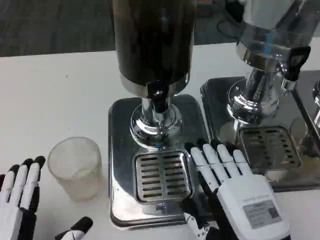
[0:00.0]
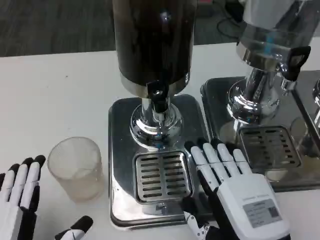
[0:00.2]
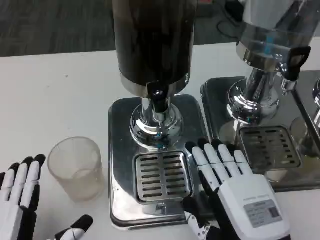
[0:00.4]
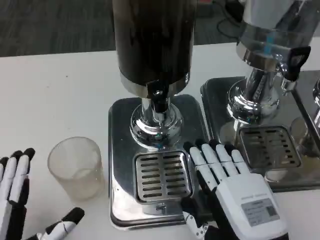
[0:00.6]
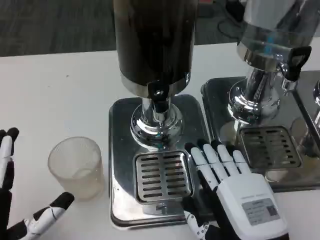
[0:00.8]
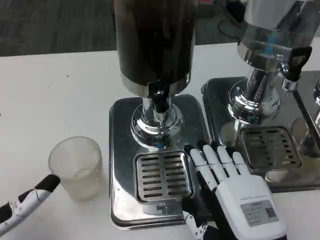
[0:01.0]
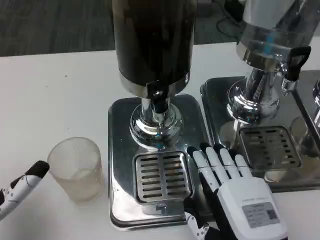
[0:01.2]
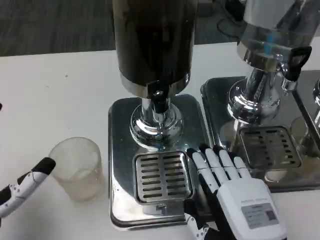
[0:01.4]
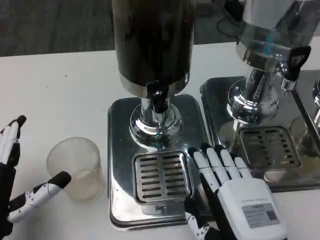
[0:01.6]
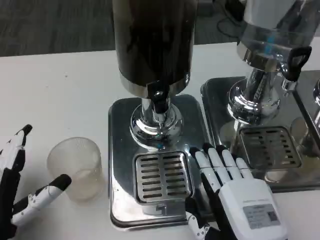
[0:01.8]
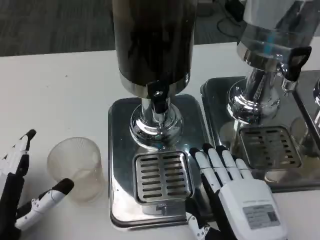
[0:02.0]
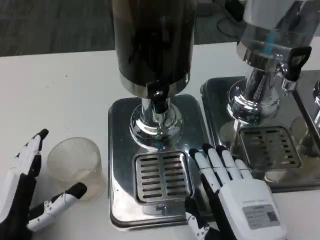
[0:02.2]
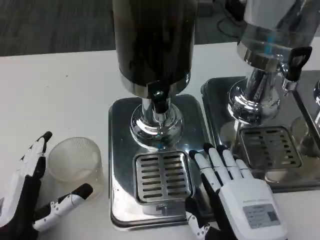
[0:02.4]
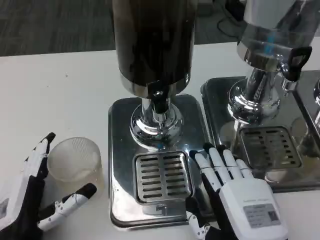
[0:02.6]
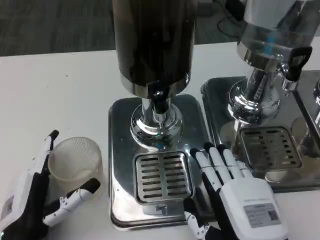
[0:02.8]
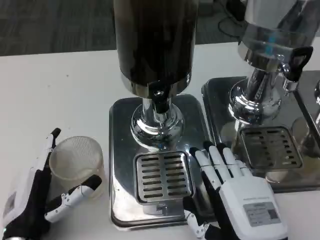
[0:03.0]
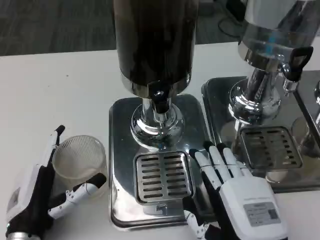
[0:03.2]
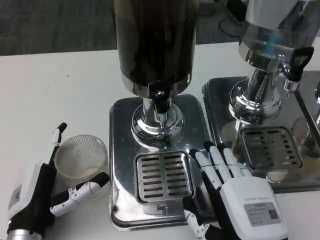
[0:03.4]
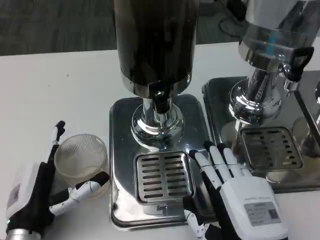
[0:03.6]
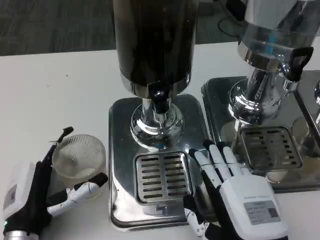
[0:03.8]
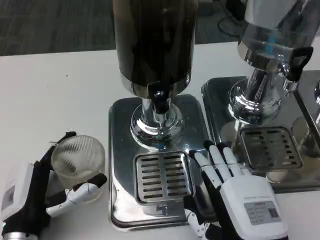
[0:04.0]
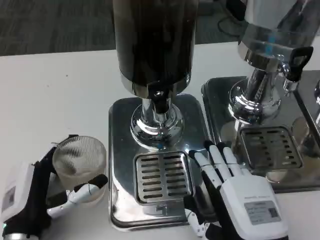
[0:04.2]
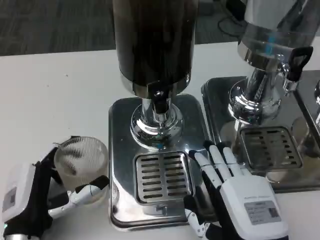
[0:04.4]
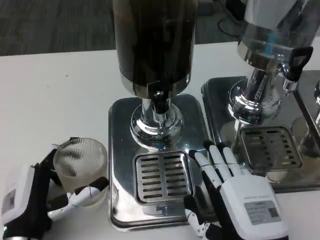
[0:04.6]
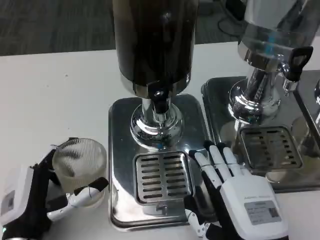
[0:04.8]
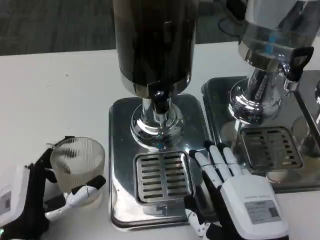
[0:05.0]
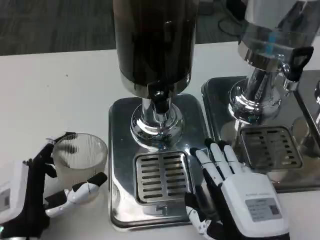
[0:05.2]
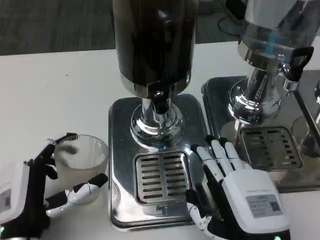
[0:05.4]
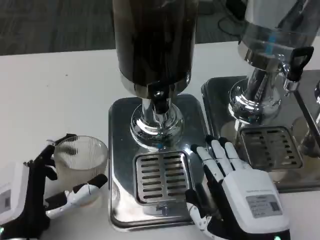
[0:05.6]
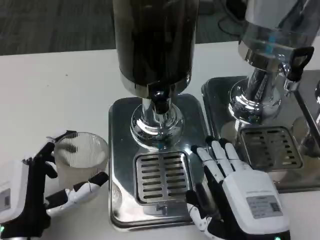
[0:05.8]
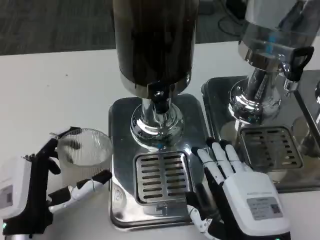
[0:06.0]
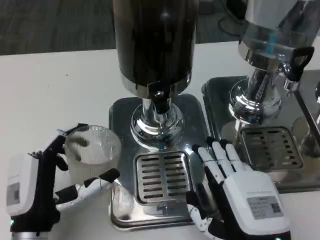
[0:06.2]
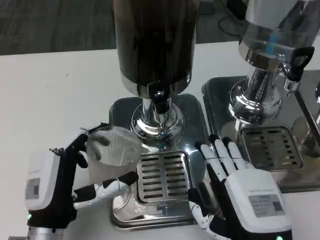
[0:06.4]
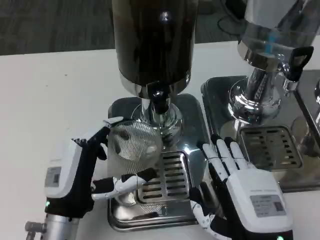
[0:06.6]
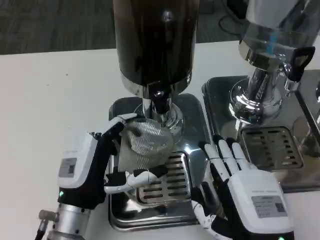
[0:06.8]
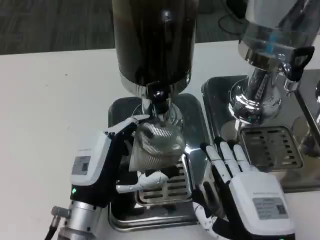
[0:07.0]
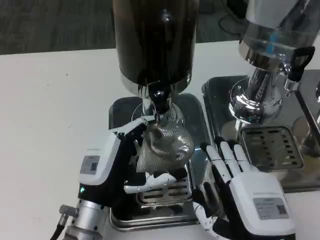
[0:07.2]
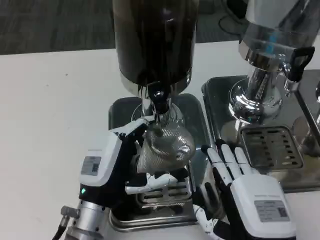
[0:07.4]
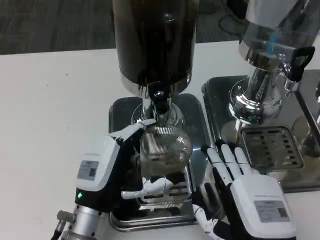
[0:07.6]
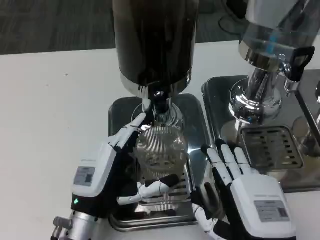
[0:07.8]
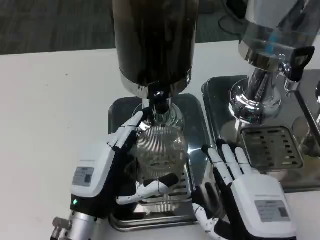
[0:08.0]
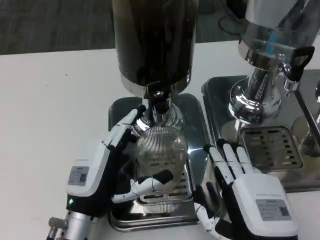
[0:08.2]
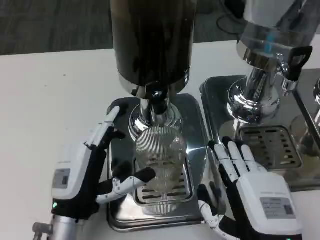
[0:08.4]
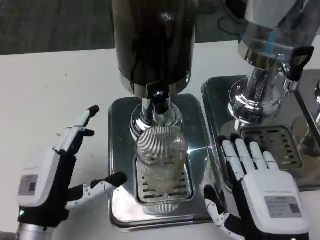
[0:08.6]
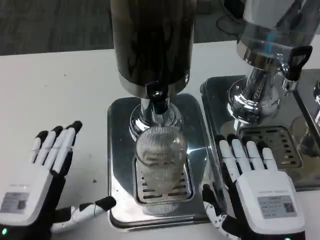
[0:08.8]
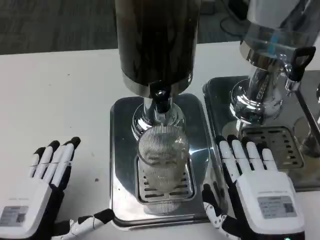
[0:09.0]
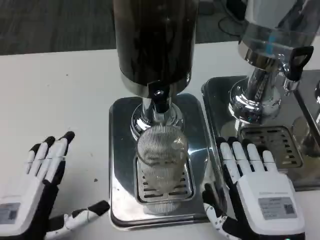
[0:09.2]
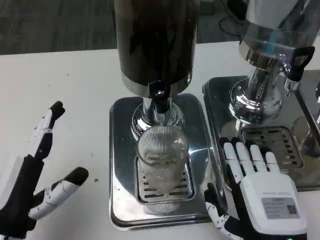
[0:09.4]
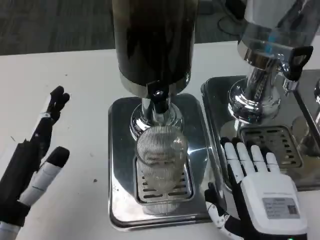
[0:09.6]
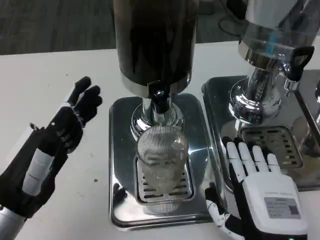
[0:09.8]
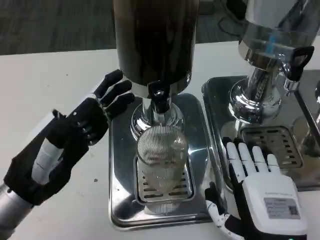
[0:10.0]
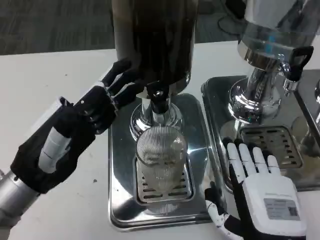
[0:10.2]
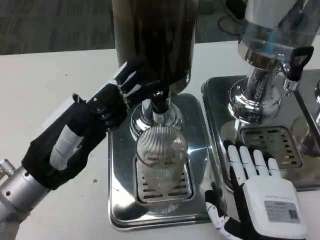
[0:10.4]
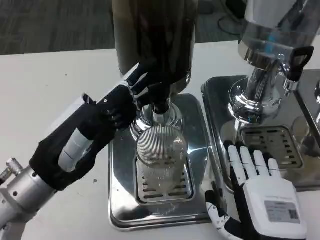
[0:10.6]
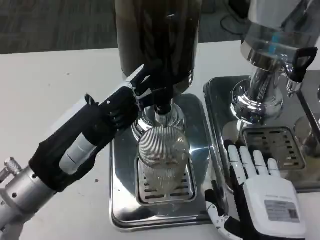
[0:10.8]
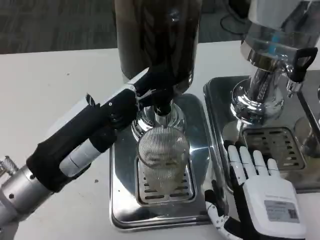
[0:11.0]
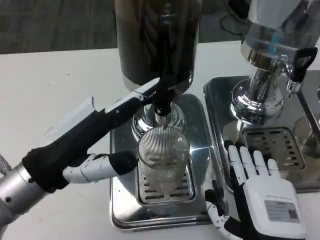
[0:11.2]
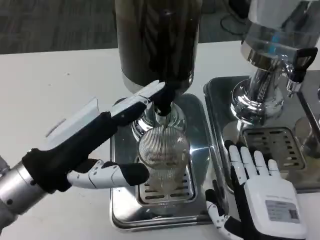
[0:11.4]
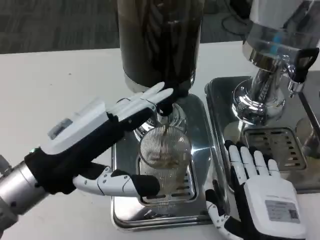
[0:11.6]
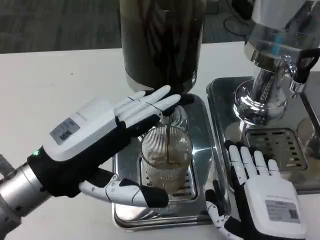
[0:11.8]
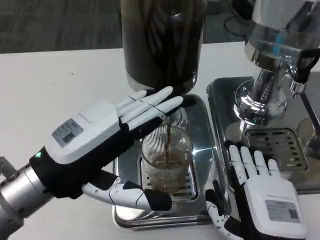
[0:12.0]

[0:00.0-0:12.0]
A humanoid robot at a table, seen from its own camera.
Task of the whole recording: Grasp the cup under the faucet to collect the drink, then remove the cup.
0:00.0 to 0:01.6: The left hand moves forward, about 5 cm.
0:01.6 to 0:03.0: The left hand shifts by about 5 cm.
0:03.0 to 0:06.0: The hands make only small movements.
0:06.0 to 0:07.6: The left hand is displaced to the right by approximately 5 cm.
0:07.6 to 0:09.0: The left hand moves to the left and backward, some 10 cm.
0:09.0 to 0:10.4: The left hand travels upward and forward by approximately 15 cm.

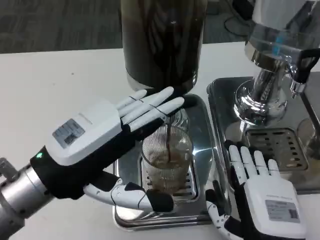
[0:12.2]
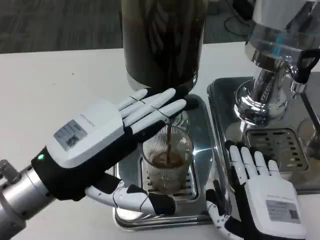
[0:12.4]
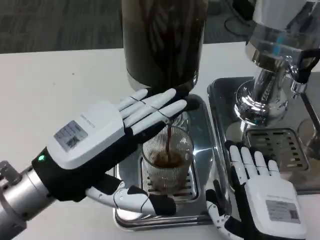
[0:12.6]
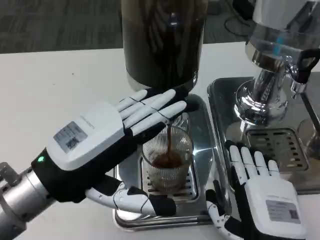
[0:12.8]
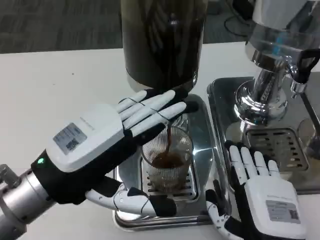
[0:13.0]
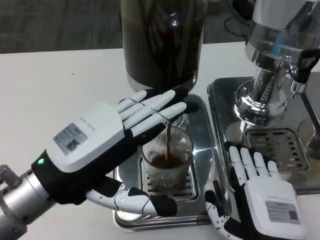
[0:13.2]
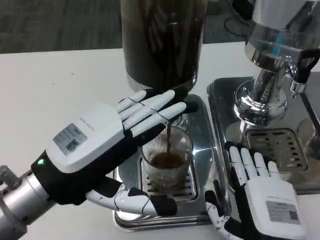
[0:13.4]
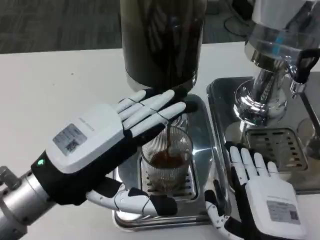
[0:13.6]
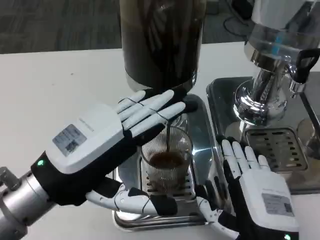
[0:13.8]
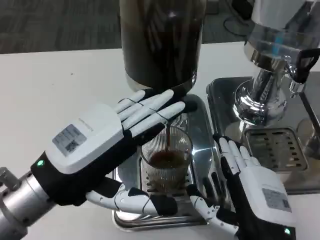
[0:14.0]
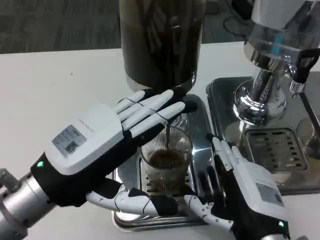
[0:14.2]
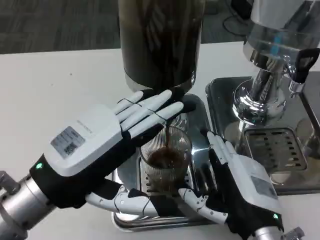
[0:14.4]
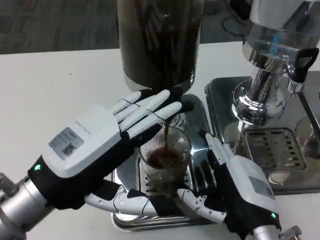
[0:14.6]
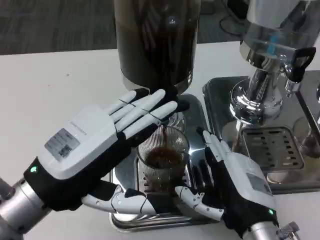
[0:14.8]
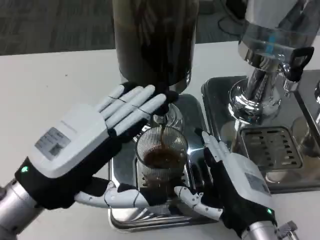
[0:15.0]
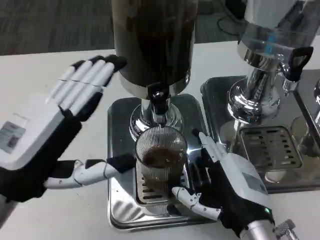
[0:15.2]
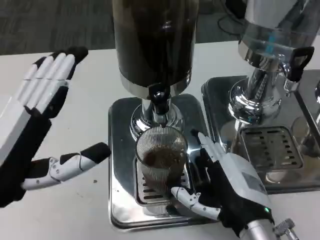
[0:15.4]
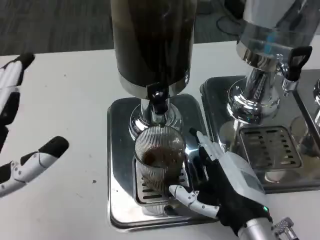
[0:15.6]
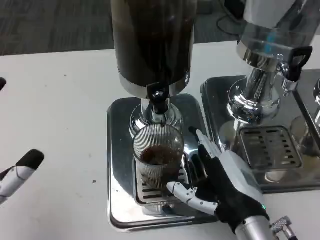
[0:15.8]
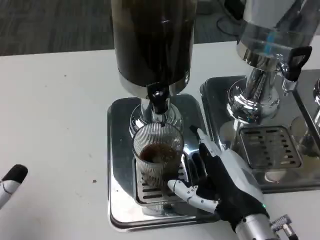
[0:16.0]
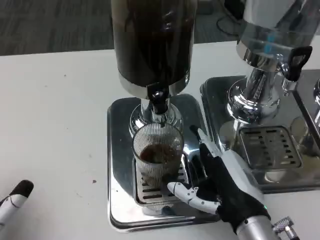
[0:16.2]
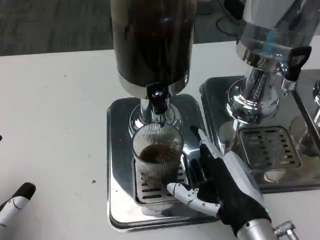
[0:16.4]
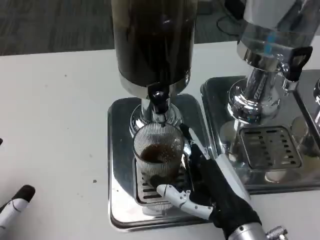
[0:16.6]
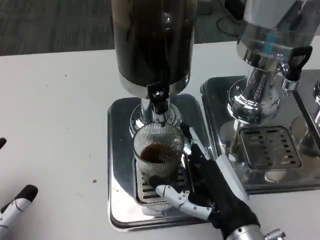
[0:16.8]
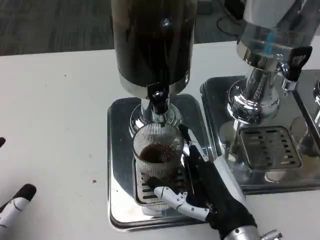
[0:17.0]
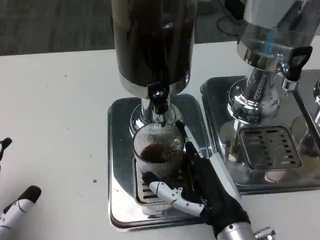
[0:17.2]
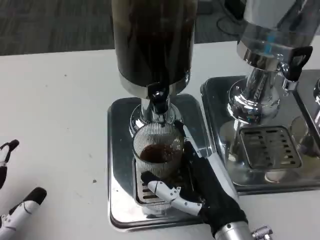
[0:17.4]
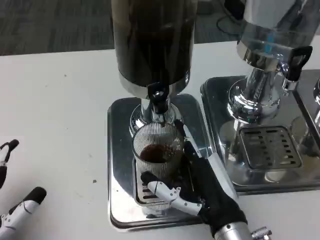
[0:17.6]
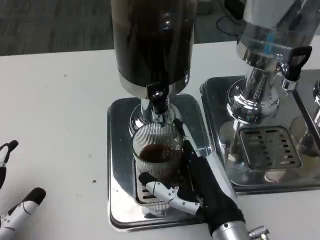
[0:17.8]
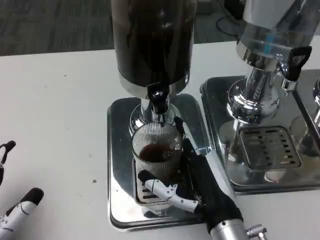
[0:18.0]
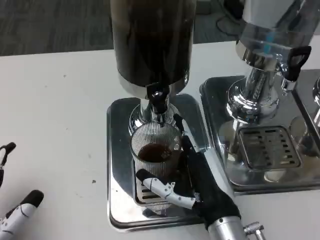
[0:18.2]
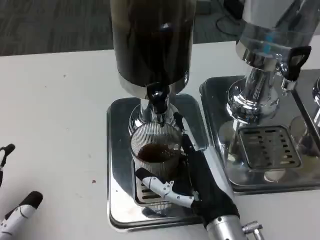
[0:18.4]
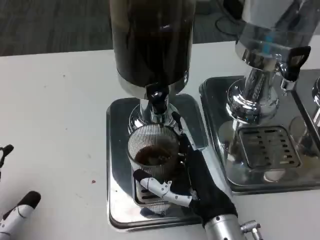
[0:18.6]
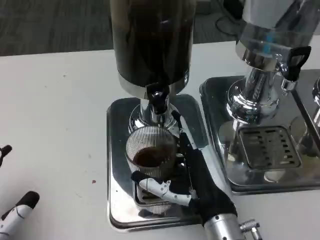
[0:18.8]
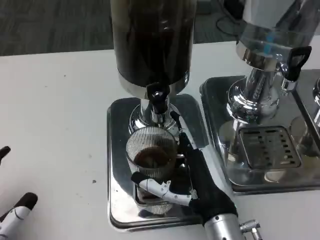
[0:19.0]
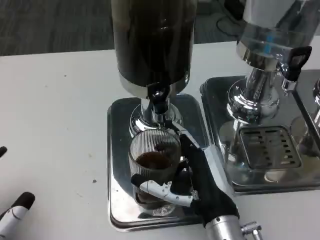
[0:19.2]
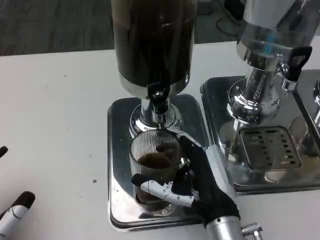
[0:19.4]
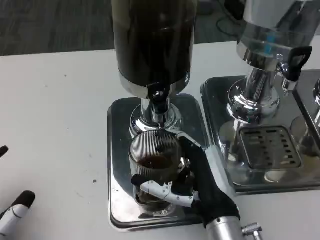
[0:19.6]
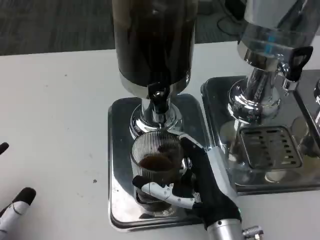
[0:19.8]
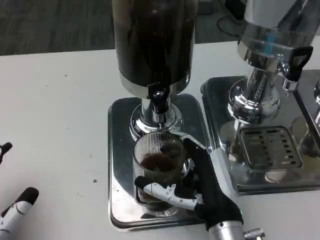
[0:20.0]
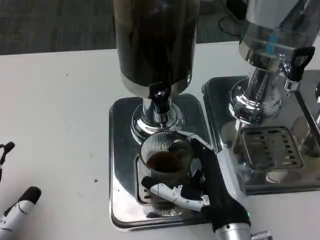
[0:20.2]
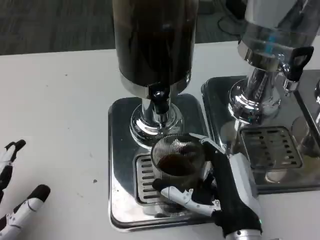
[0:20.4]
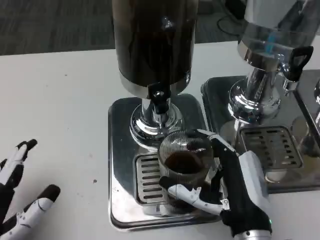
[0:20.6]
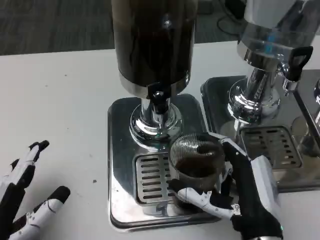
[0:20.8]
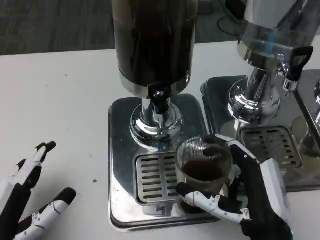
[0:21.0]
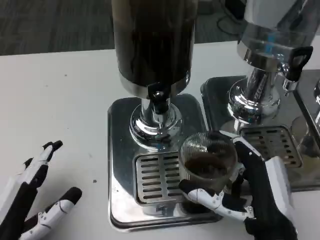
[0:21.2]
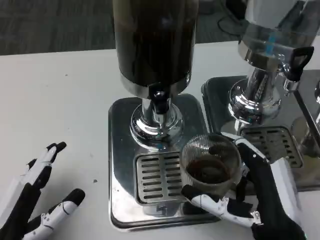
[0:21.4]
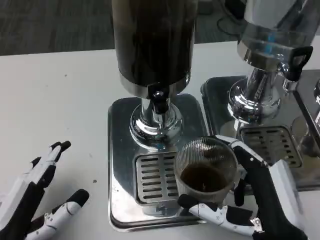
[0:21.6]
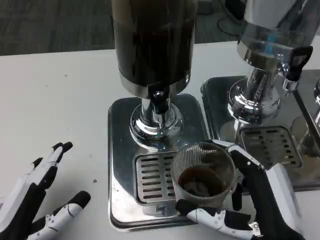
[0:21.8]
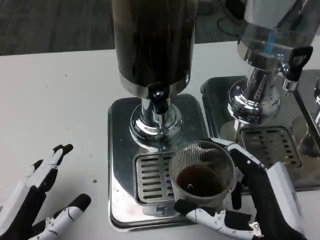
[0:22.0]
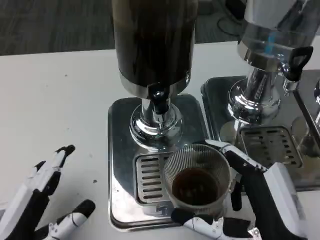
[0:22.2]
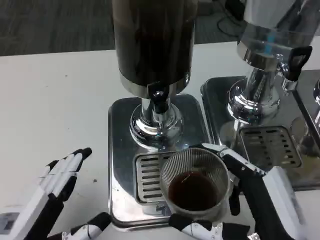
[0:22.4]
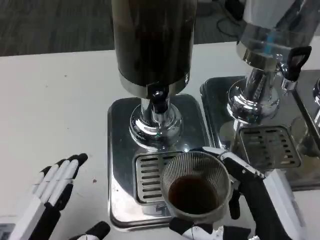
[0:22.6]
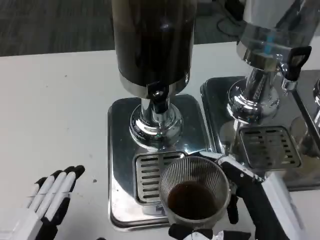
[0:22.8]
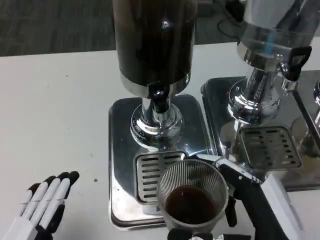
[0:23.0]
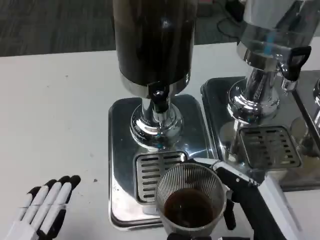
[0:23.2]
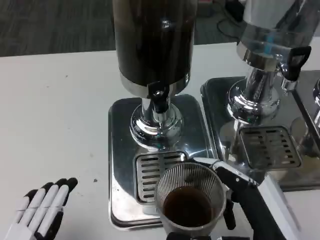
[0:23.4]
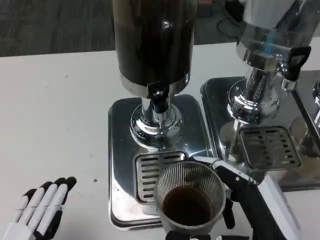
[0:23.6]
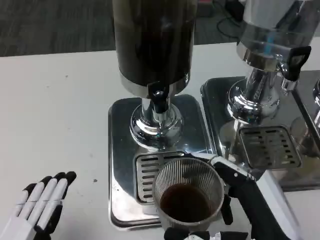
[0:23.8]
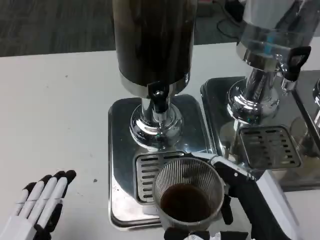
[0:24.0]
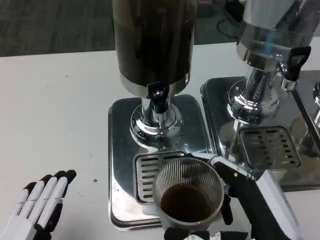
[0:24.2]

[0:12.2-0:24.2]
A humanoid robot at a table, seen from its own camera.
Task of the whole recording: Grasp the cup under the faucet to collect the drink, then remove the cup.
0:12.2 to 0:13.8: The hands stay close to where they were, moving slightly.
0:15.2 to 0:16.6: The left hand moves downward, backward and to the left, about 15 cm.
0:16.6 to 0:19.8: There are only small adjustments of the hands.
0:19.8 to 0:21.2: The right hand travels to the right by some 5 cm.
0:21.2 to 0:22.6: The right hand changes place by approximately 5 cm.
0:22.6 to 0:24.2: The hands move only a little.
